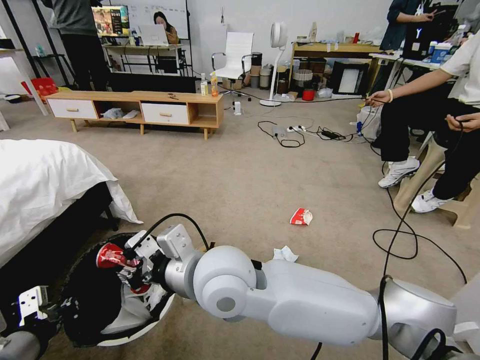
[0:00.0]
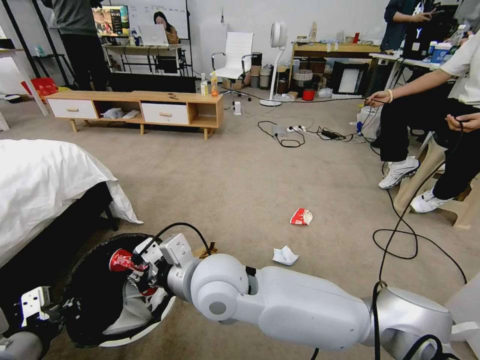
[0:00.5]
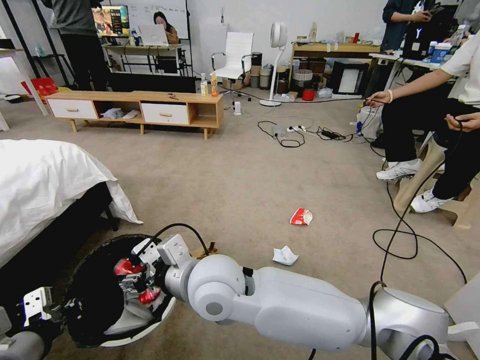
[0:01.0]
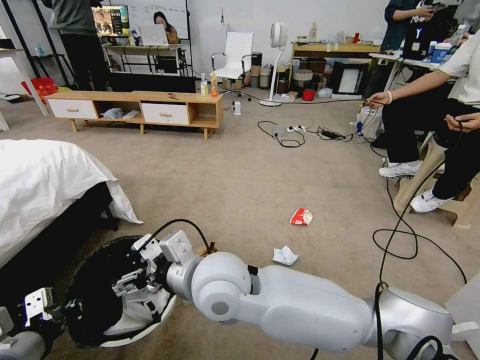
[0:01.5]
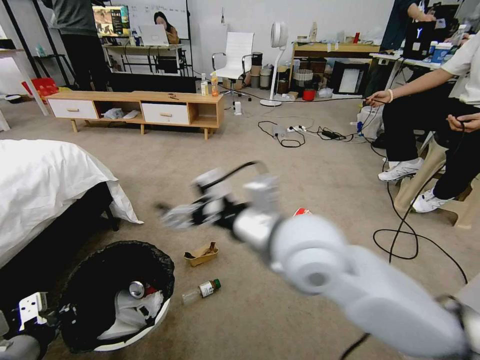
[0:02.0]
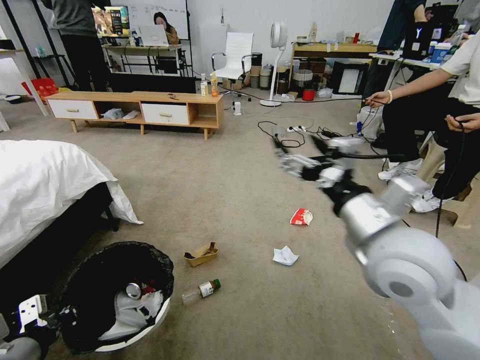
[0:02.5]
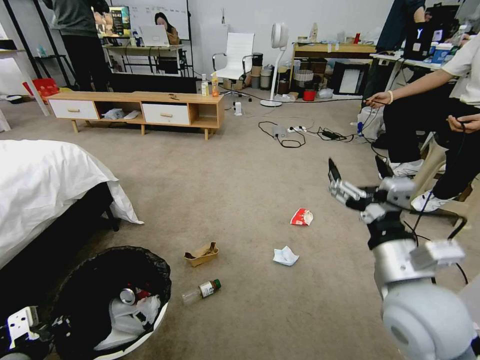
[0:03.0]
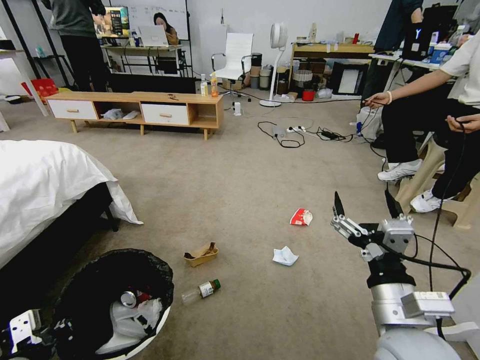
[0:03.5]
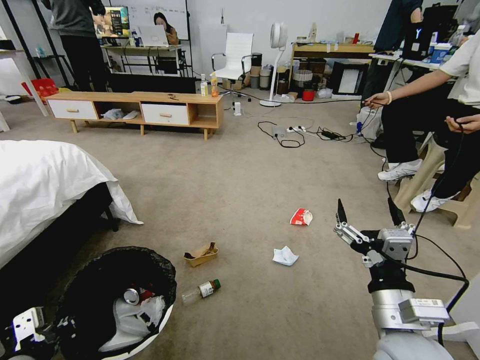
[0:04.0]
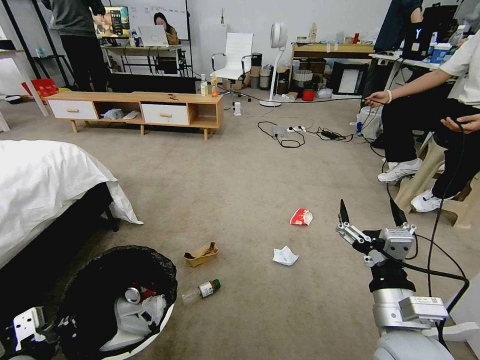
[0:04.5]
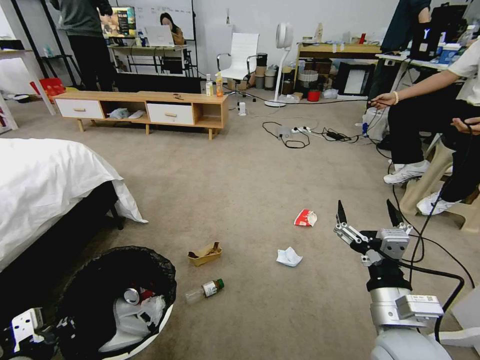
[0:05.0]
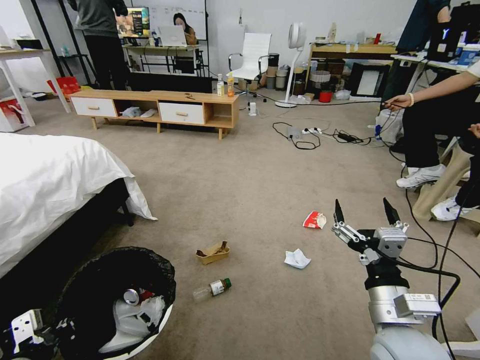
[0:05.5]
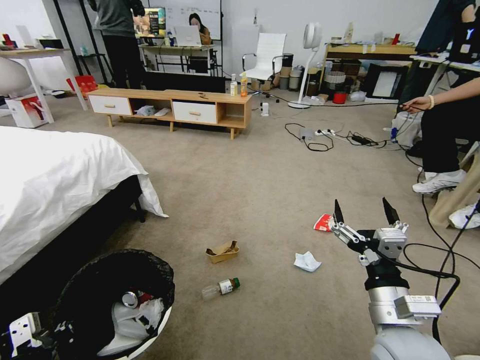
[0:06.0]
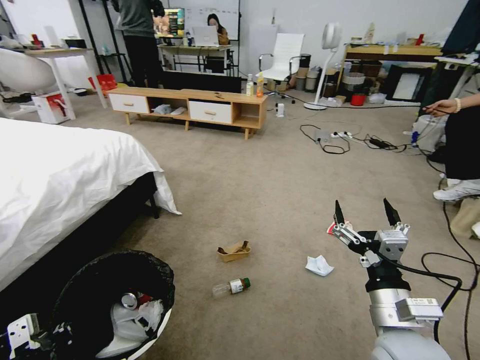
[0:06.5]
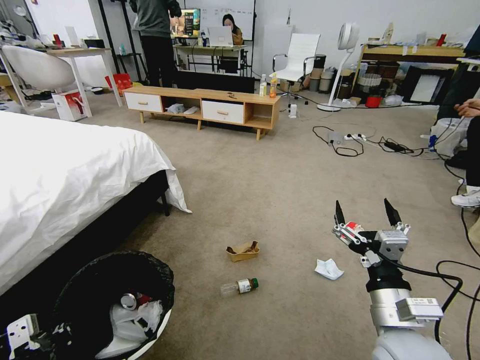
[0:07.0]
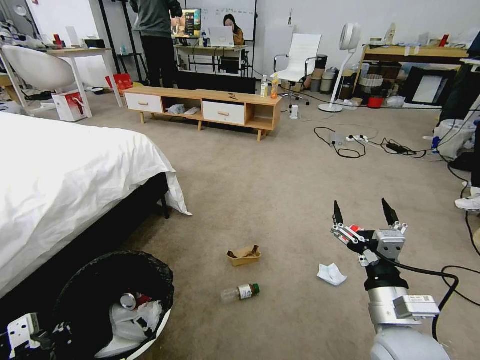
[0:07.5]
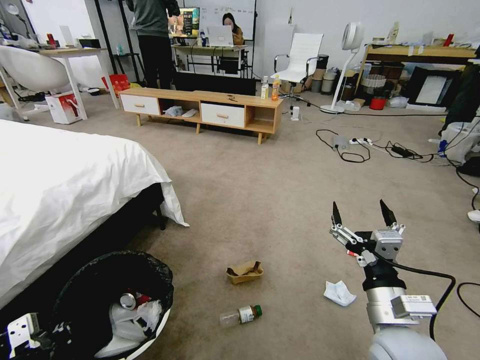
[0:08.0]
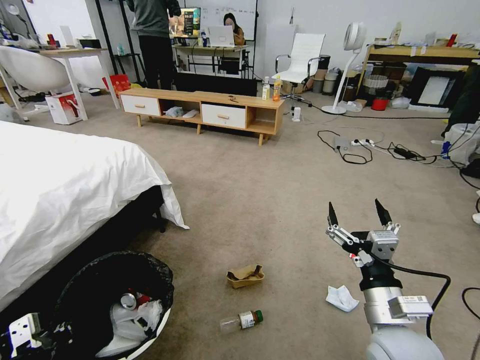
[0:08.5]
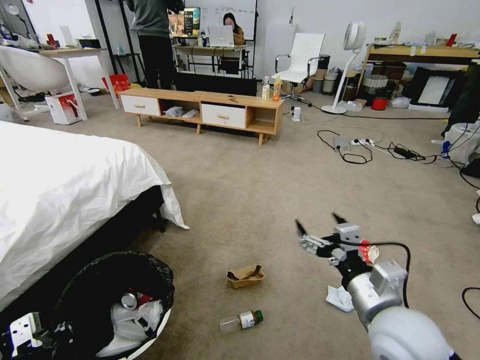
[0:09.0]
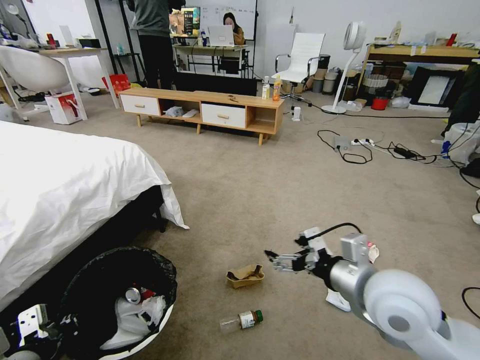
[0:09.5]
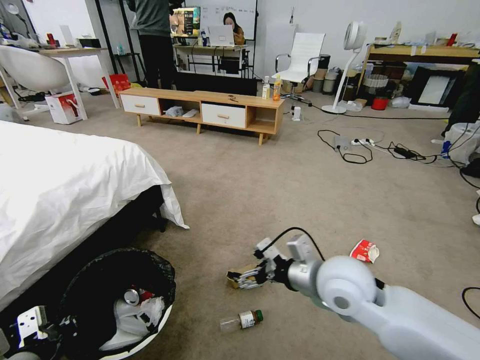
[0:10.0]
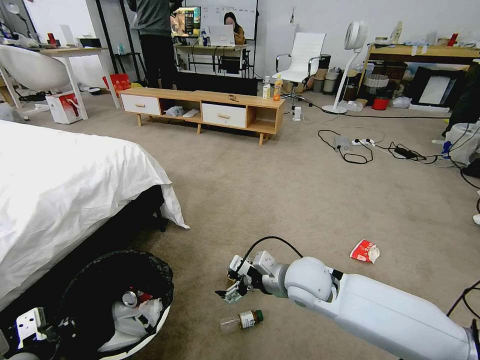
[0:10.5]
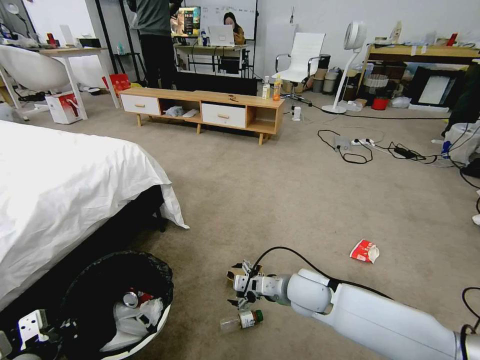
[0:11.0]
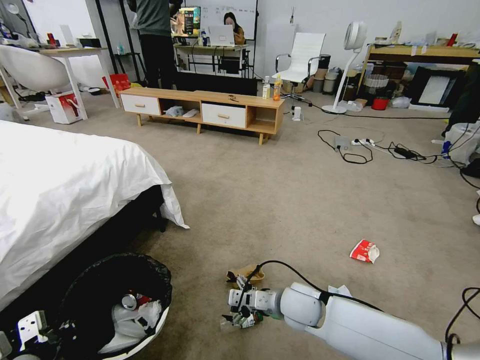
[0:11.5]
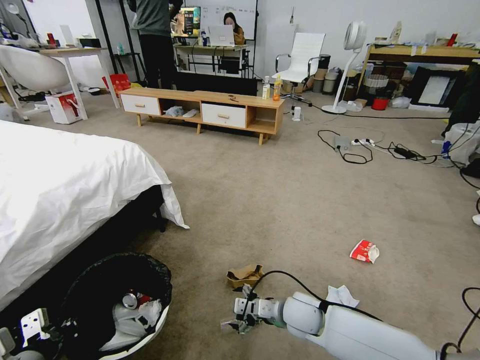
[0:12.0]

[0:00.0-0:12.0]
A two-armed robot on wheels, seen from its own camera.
Task of the whole recording: Pick up the trash bin and place the garbage on the floor into it.
0:00.0 to 0:02.0: The right gripper is displaced to the right and upward by some 15 cm, and opens its fingers.
0:02.0 to 0:04.0: The right gripper heads downward, to the right and backward, covering roughly 25 cm.
0:08.0 to 0:10.0: The right gripper travels forward and to the left by approximately 15 cm.
0:10.0 to 0:12.0: The right gripper travels downward by about 20 cm.

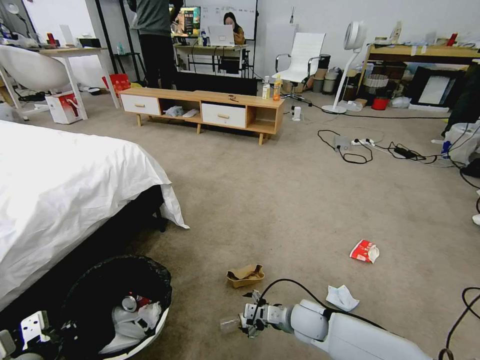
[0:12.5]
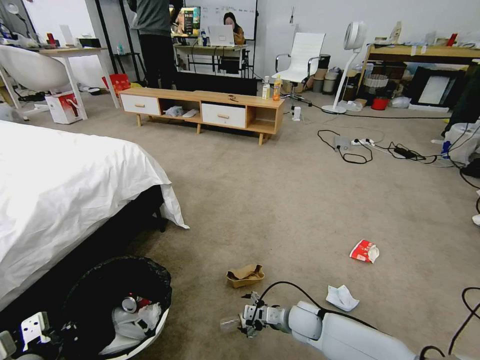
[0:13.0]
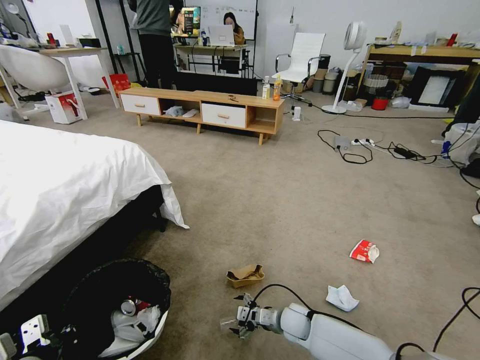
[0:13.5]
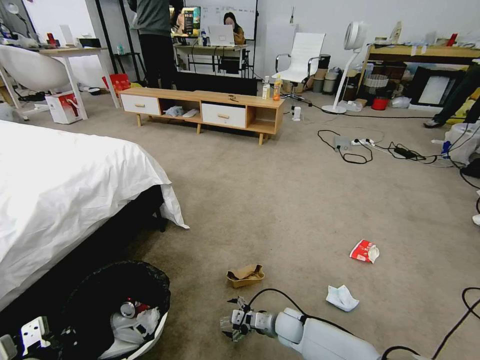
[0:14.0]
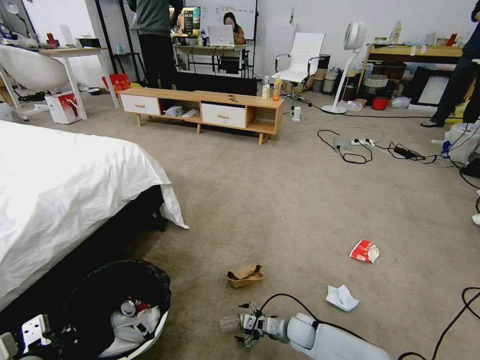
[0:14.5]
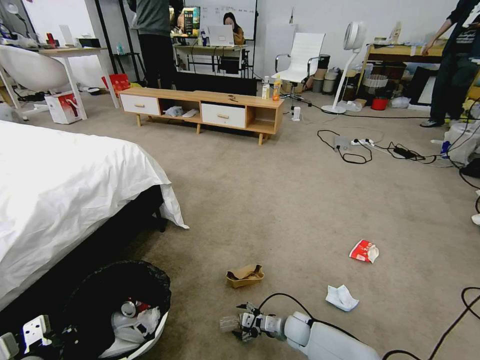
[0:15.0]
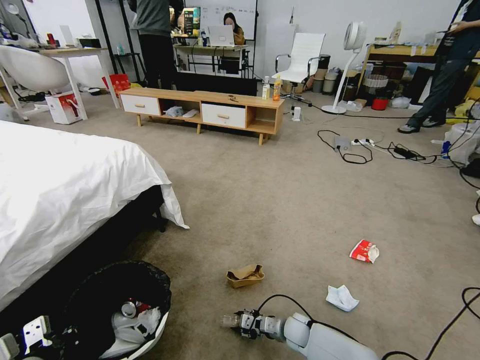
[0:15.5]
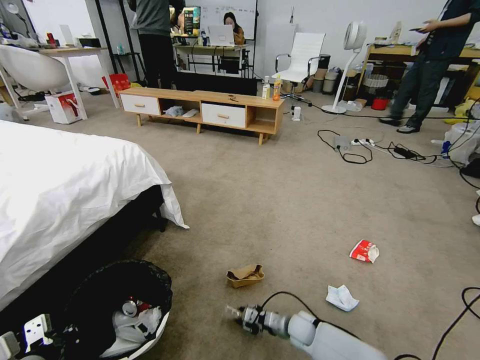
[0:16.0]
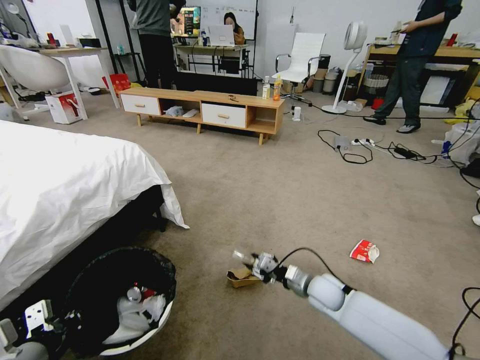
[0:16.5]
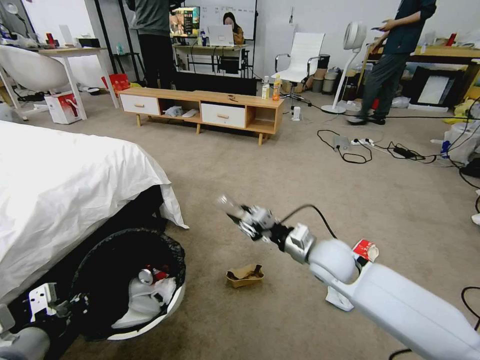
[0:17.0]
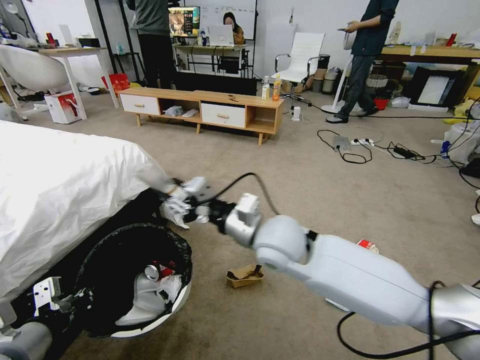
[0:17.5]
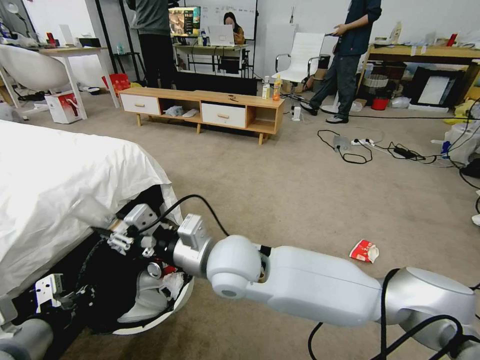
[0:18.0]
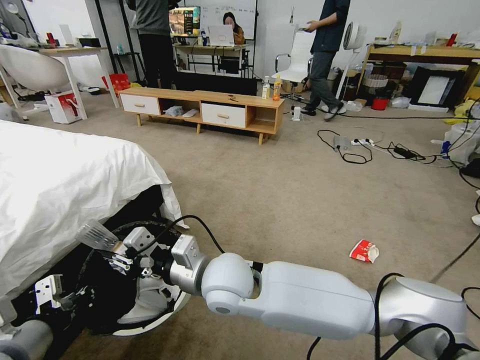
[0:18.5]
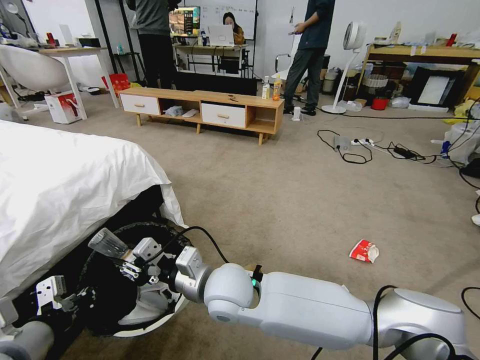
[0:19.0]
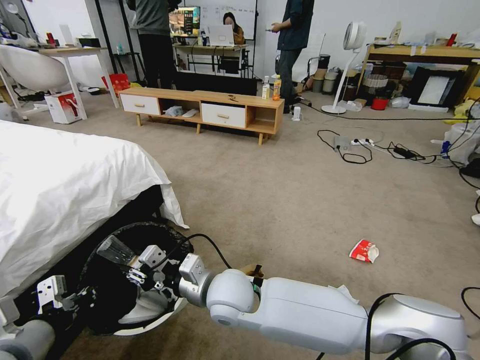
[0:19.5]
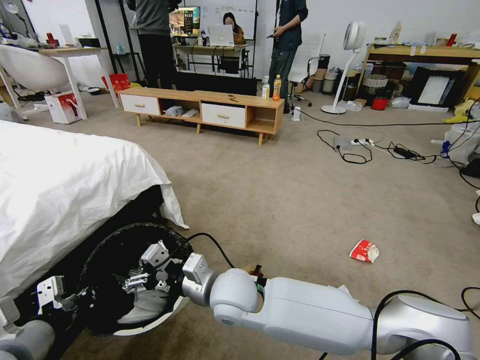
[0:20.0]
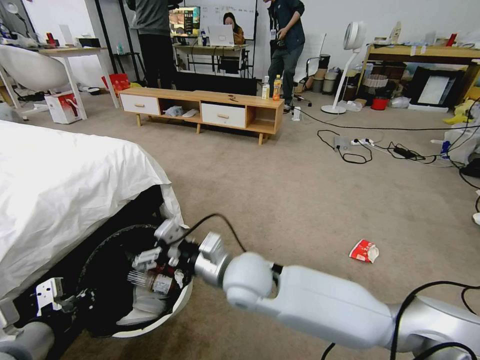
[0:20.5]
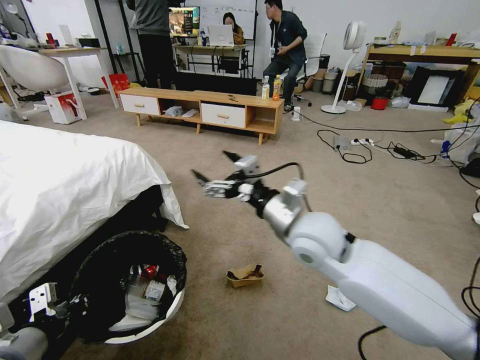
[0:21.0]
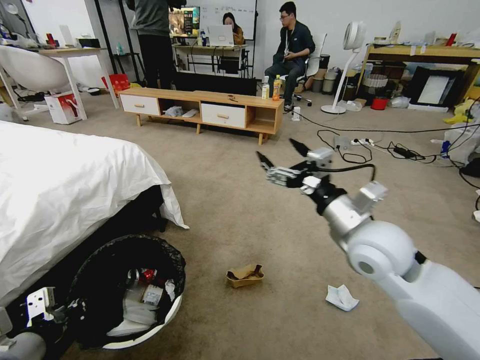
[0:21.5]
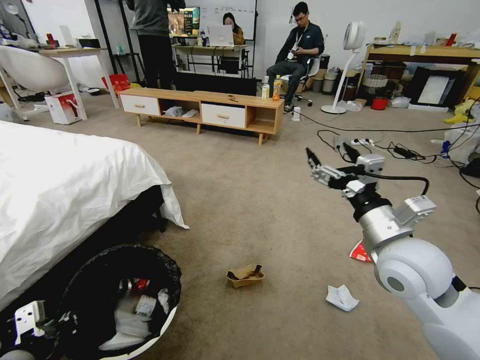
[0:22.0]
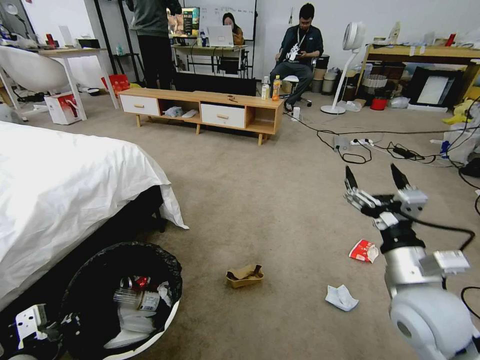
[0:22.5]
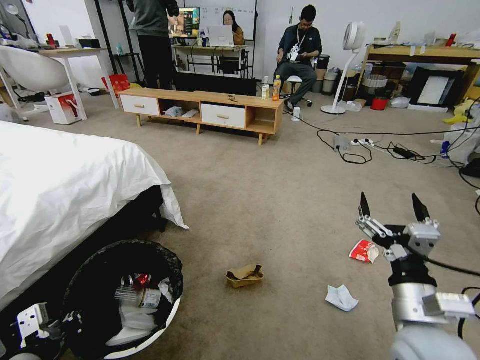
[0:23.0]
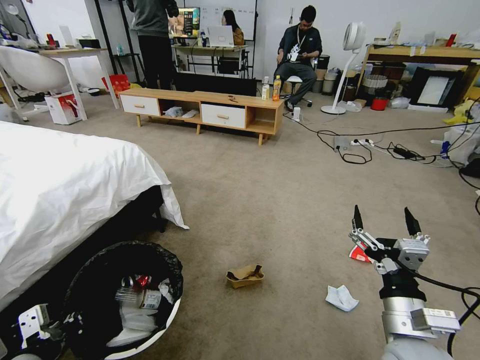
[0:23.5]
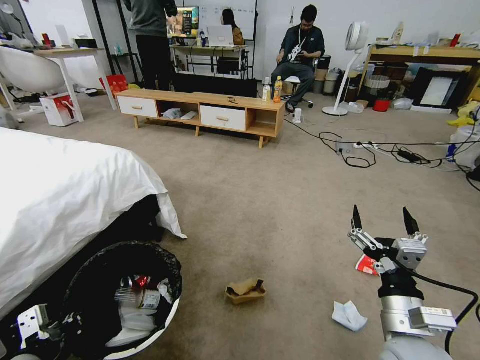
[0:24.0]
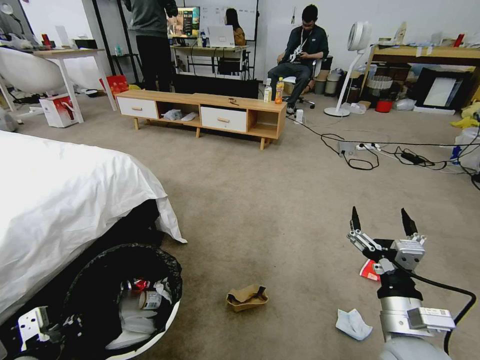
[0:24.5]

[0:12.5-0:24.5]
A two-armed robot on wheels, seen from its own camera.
Task of the whole recording: Pick up the trash bin and place the garbage on the floor into it.
0:12.5 to 0:14.5: The right gripper shifts about 10 cm downward.
0:14.5 to 0:16.5: The right gripper shifts roughly 15 cm upward, and closes.
0:16.5 to 0:18.5: The left gripper travels upward by roughly 5 cm; the right gripper is displaced to the left and upward by approximately 35 cm.
0:18.5 to 0:20.5: The right gripper opens up.
0:20.5 to 0:22.5: The right gripper moves to the right, approximately 30 cm.
0:22.5 to 0:24.5: The right gripper goes roughly 10 cm downward and backward.

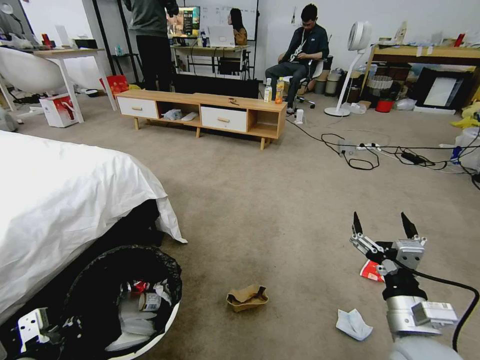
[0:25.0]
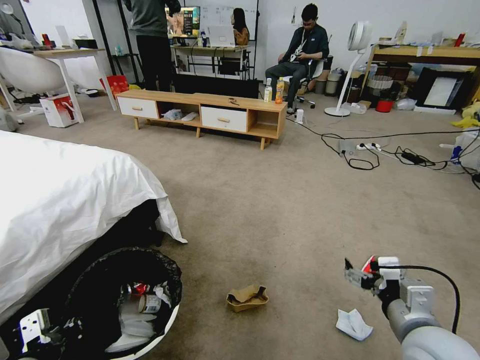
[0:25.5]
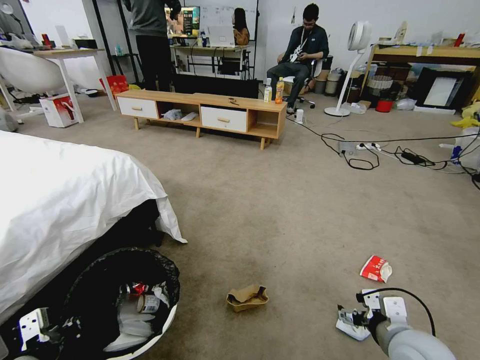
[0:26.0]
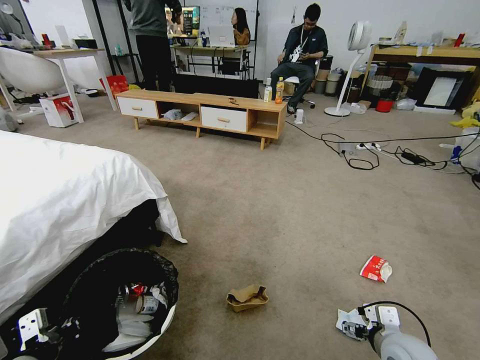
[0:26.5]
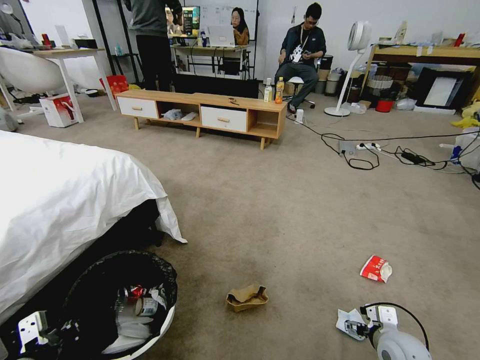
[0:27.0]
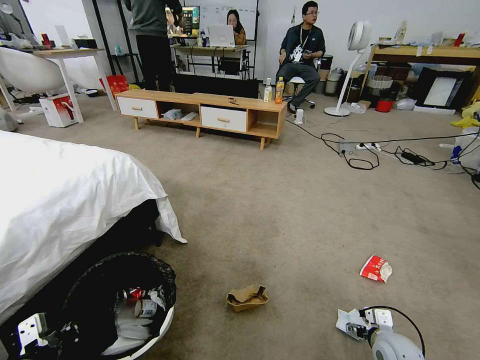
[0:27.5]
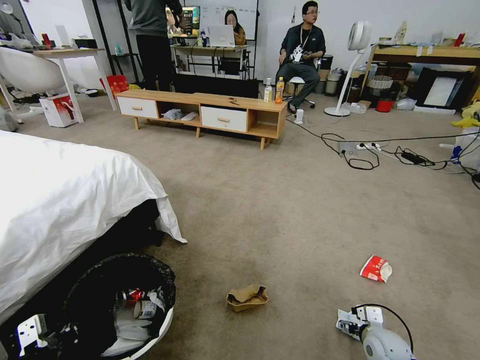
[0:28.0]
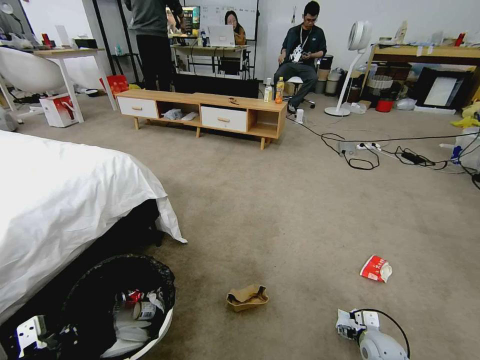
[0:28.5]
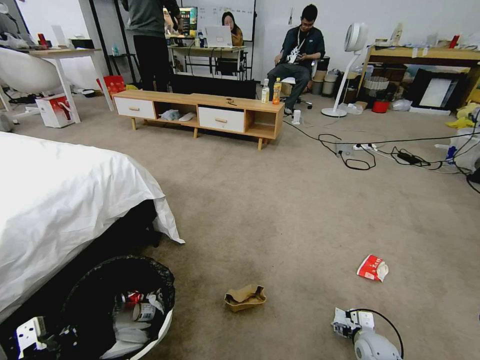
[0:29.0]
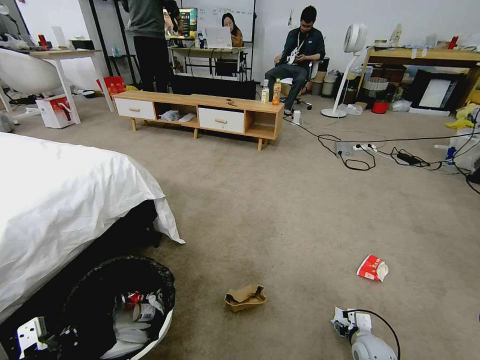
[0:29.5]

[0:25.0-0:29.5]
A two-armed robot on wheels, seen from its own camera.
Task of the whole recording: Pick up the trash bin and place the garbage on the floor into it.
0:25.0 to 0:27.0: The right gripper shifts some 20 cm downward, to the right and forward.
0:27.0 to 0:29.5: The right gripper shifts roughly 15 cm downward.
